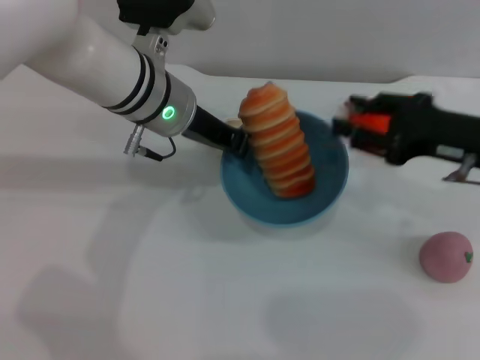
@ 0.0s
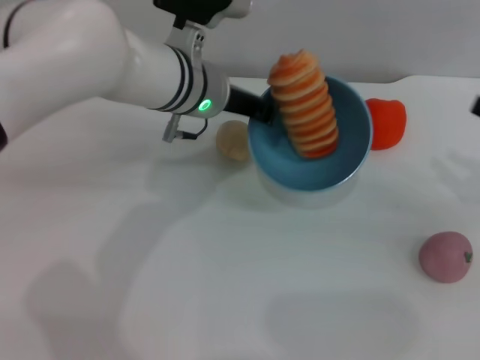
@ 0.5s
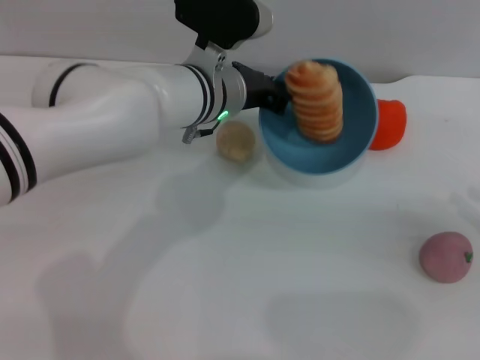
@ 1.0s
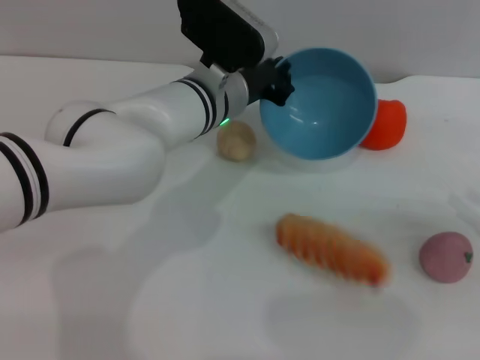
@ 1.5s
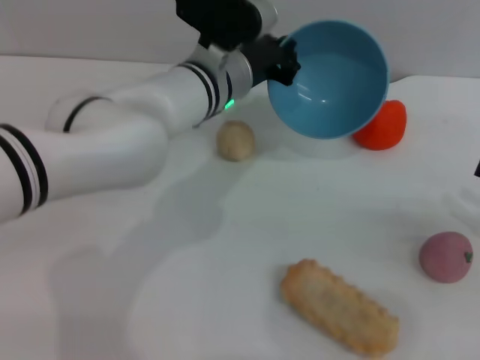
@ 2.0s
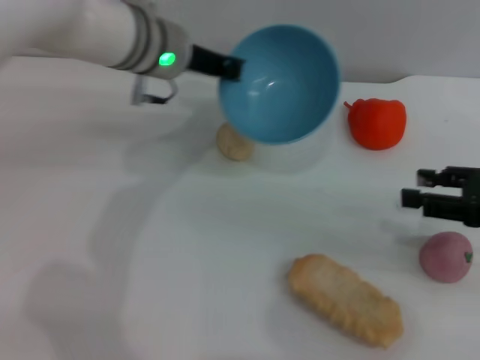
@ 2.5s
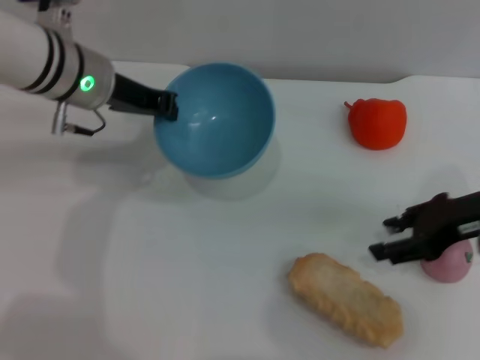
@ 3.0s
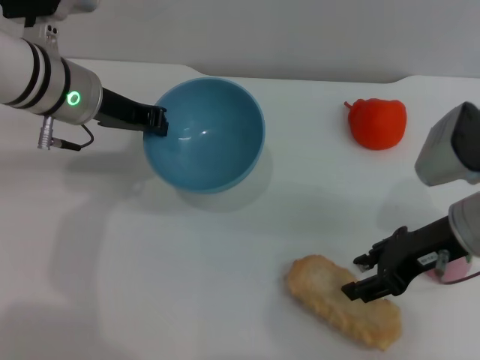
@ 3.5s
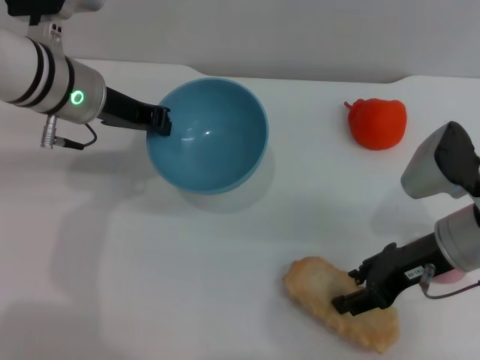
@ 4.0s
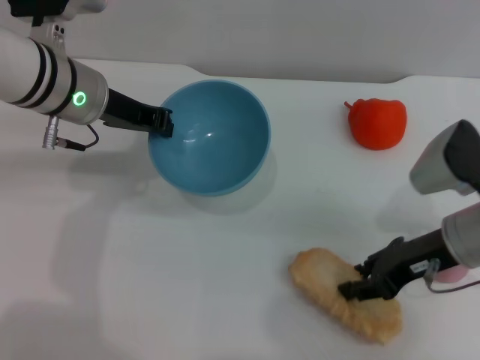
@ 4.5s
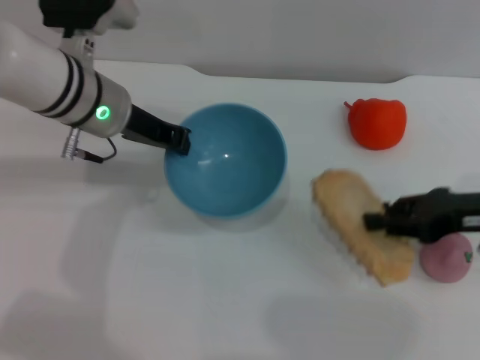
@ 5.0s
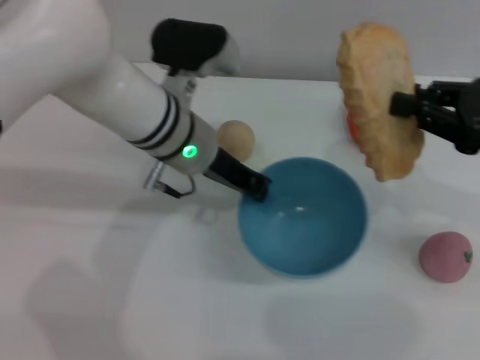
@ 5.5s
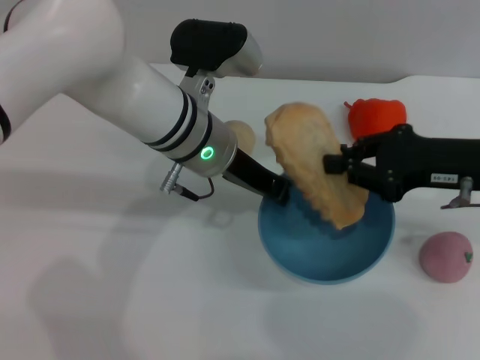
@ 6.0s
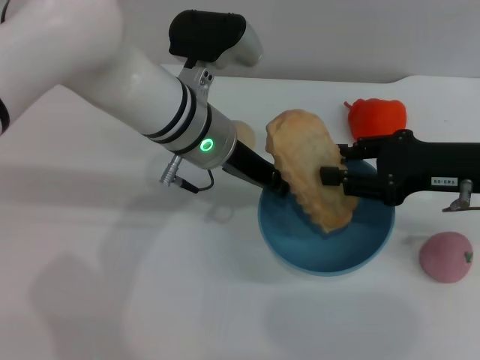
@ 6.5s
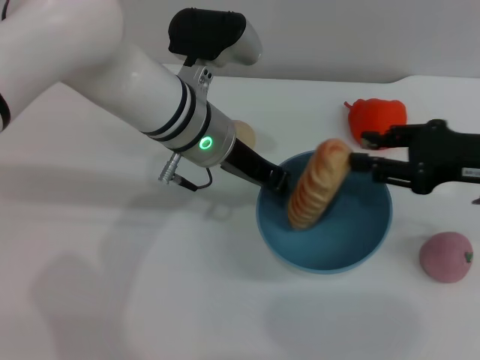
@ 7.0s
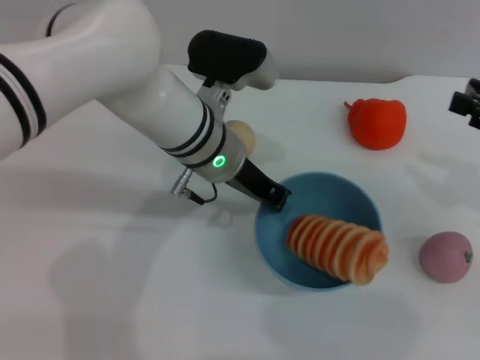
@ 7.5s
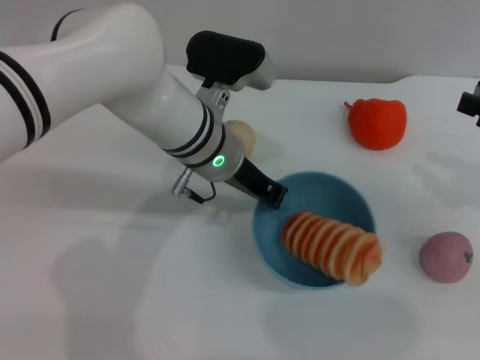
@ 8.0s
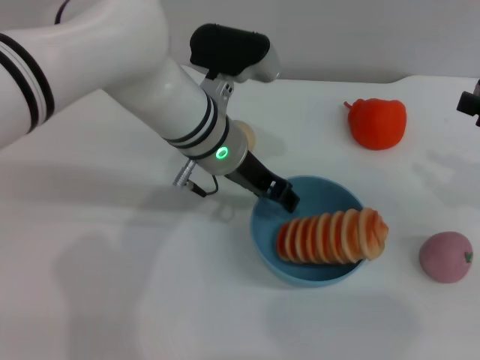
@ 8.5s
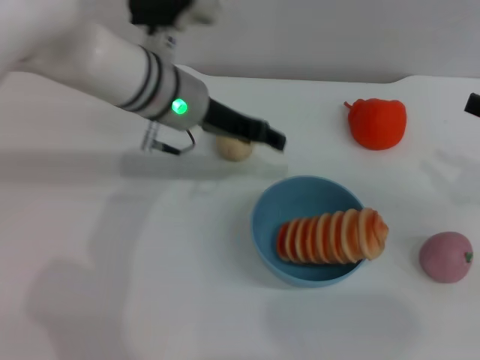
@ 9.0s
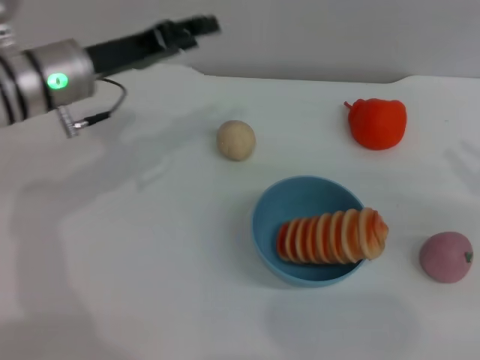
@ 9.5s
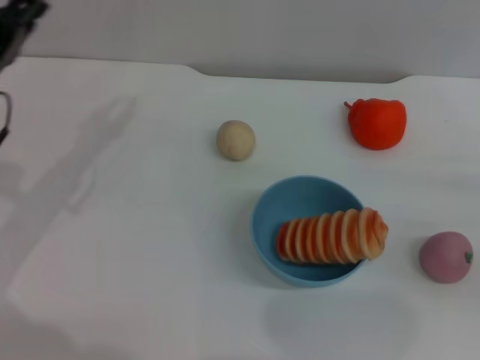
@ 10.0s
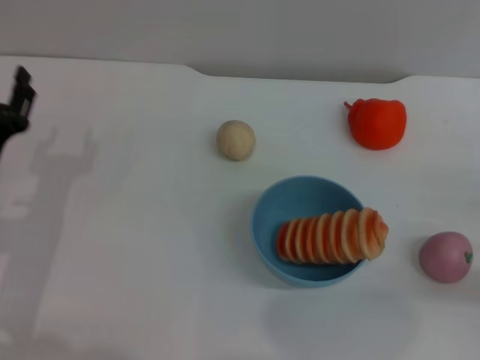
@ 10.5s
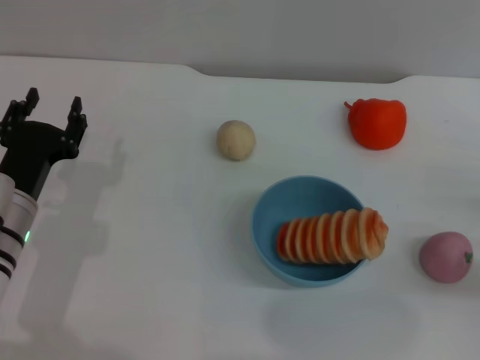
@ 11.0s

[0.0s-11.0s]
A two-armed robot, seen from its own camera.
Task of the whole recording: put the bread into the blue bowl and pour it out repeatedly.
Step, 0.5s to 2.0s: Pour the bread out of the bowl.
Step, 2.5s to 5.0s: Pick up the bread with the right gripper.
Step, 5.5s to 7.5s: Place the bread into the bowl.
Step, 8.0s to 9.0s: Place the bowl on the table.
0.0s to 2.0s: The right gripper goes some 15 cm to the right and backward, while the left gripper heads to the right, covering about 5 cm.
2.0s to 3.5s: The grippers both shift to the left by about 15 cm.
3.5s to 5.5s: The left gripper is displaced to the right by approximately 10 cm; the right gripper is displaced to the right and upward by some 10 cm, and closes its fingers.
5.5s to 7.5s: The right gripper changes place by about 5 cm, and opens its fingers.
7.5s to 9.0s: The left gripper shifts by about 5 cm, and opens.
9.0s to 11.0s: The left gripper goes approximately 25 cm to the left, backward and downward. Meanwhile the right gripper goes some 10 cm downward.

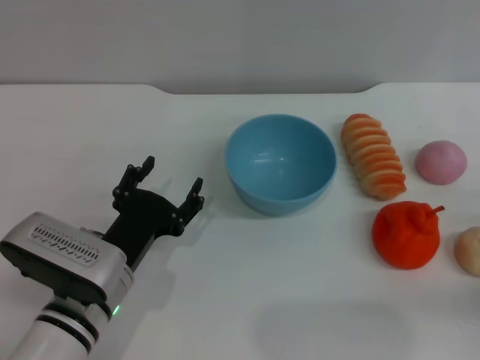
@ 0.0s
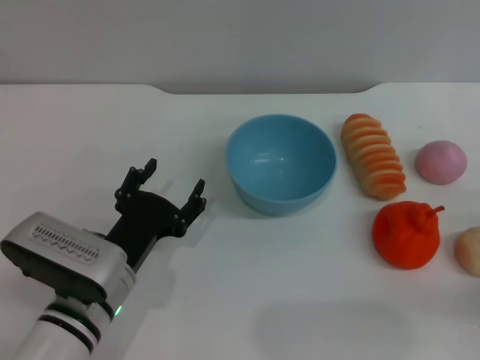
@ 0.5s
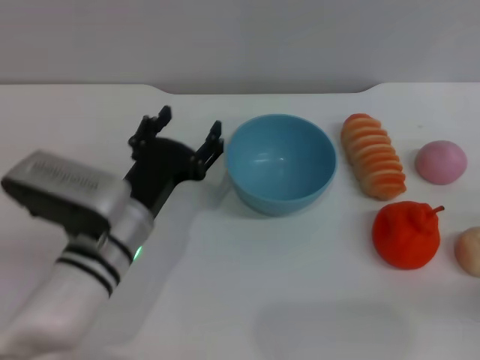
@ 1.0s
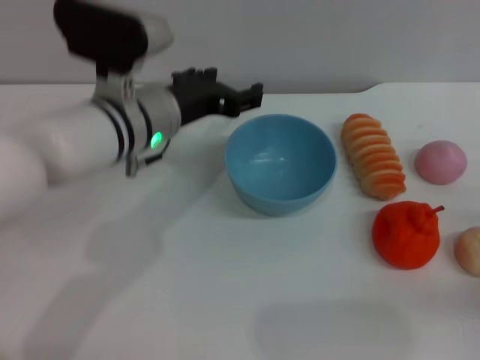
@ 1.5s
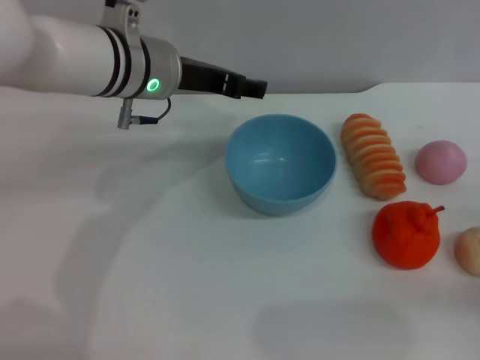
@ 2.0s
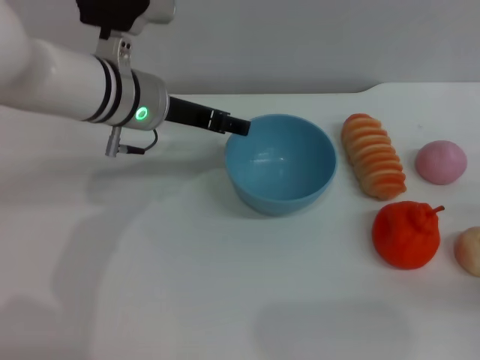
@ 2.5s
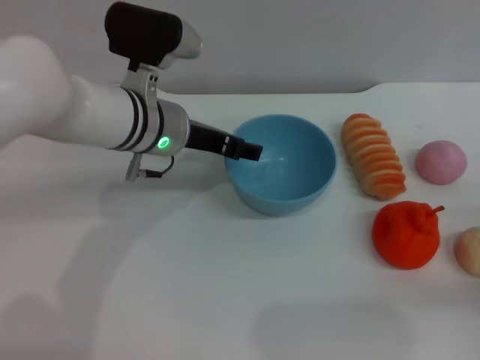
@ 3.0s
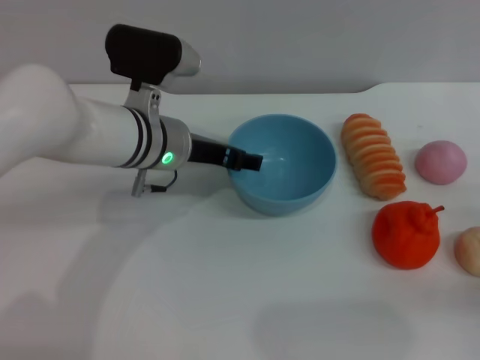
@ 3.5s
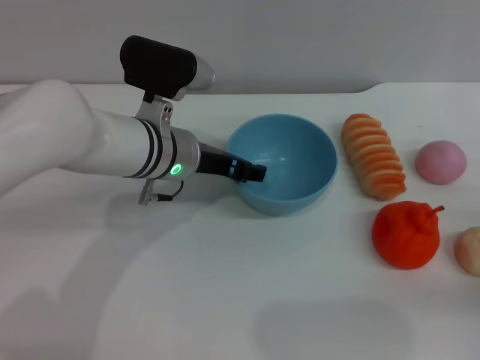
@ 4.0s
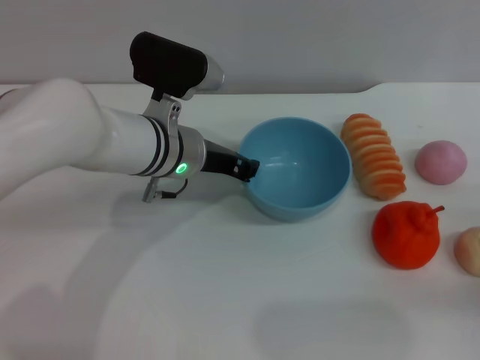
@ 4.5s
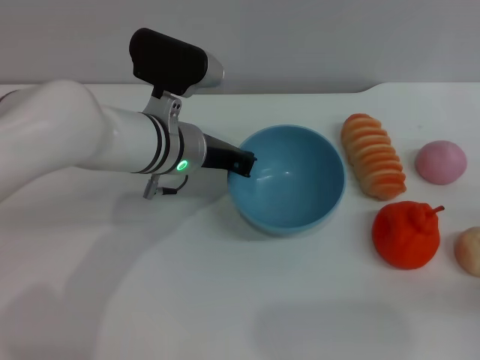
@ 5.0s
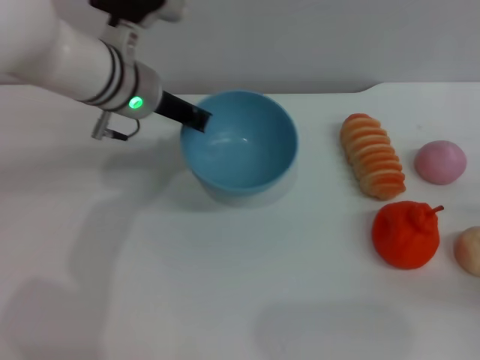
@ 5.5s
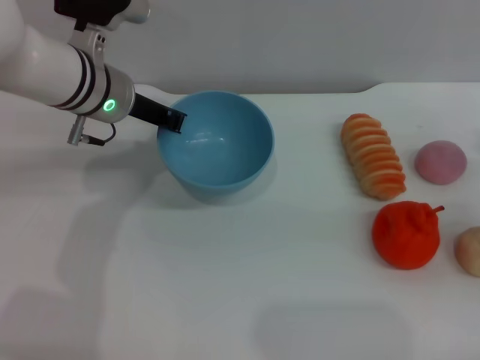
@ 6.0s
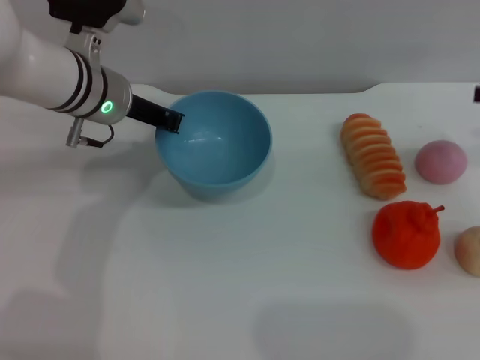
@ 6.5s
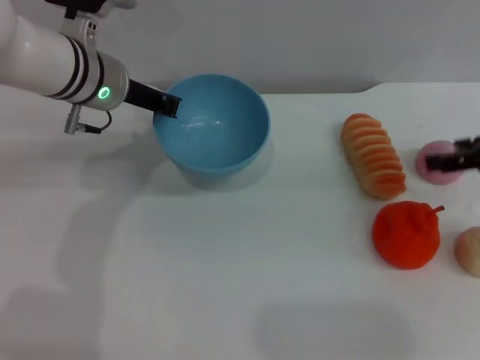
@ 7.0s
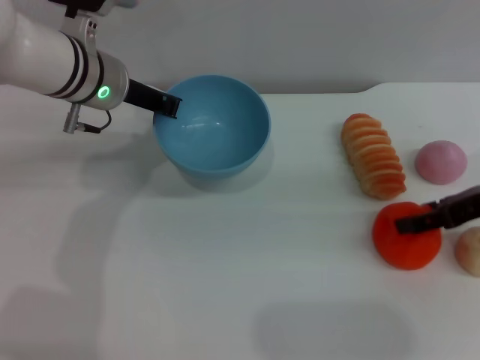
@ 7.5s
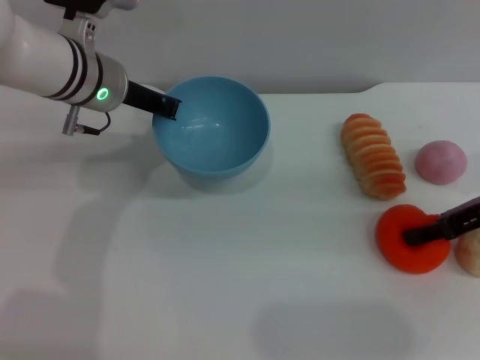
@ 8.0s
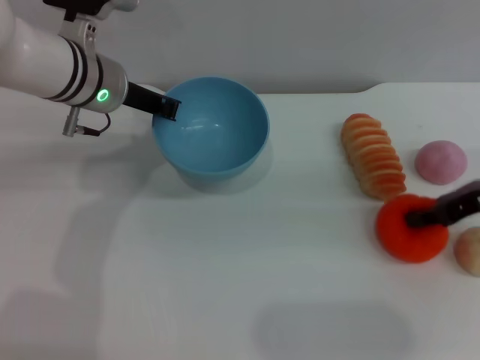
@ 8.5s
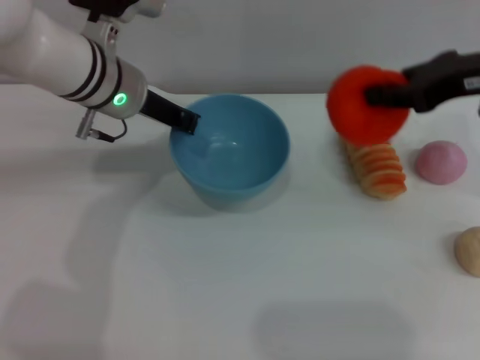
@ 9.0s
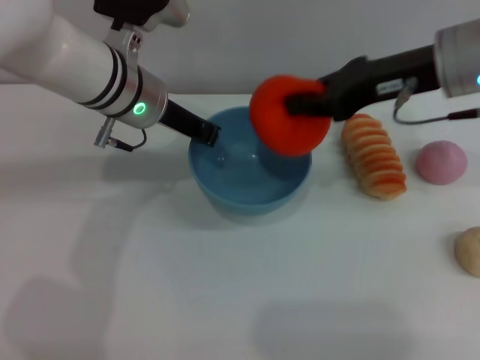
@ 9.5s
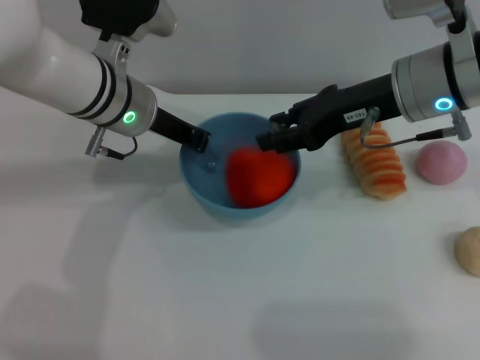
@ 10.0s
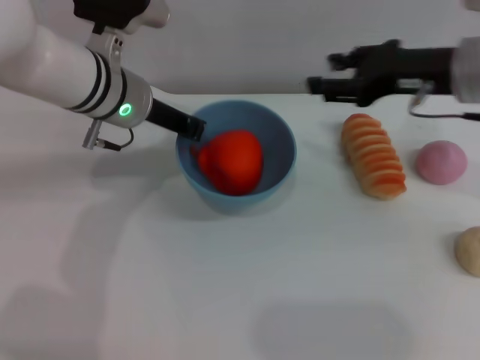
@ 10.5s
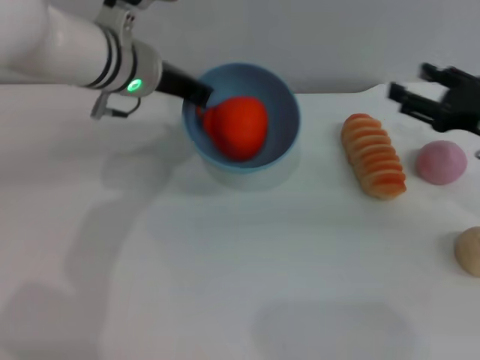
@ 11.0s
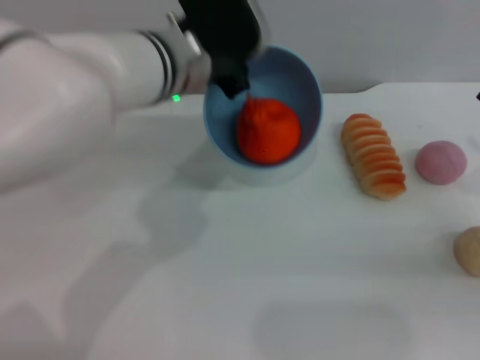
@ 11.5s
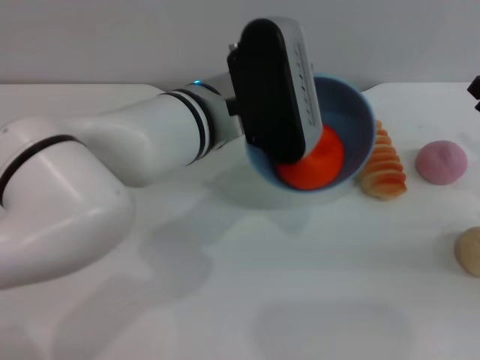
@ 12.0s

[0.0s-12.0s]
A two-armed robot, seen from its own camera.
Task of the whole recording: put the orange into the blue bowl and pour it out repeatedly.
Step, 0.0s to 5.5s: Pick up the bowl with the left gripper.
Step, 6.0s to 8.5s: Pick up the orange with the right gripper.
Step, 9.0s to 10.0s: Place the orange into the bowl.
0.0s to 2.0s: The left gripper is displaced forward and upward by about 25 cm.
2.0s to 4.0s: The left gripper shifts about 10 cm downward.
4.0s to 6.0s: The left gripper heads to the left and upward, covering roughly 10 cm, and closes its fingers, while the right gripper travels forward by about 5 cm.
6.0s to 8.0s: The right gripper goes approximately 10 cm to the left and upward.
8.0s to 10.0s: The right gripper travels to the left and upward by about 15 cm, and closes its fingers.
10.0s to 12.0s: The left gripper is displaced to the right and backward by some 10 cm. The right gripper goes some 25 cm to the right, downward and backward, and opens.

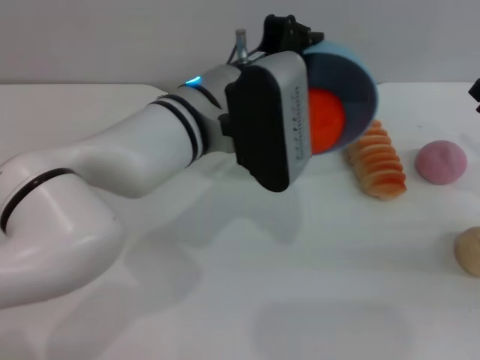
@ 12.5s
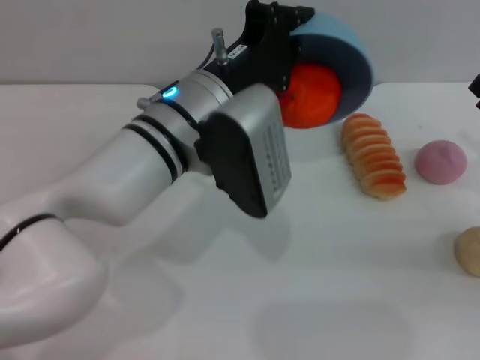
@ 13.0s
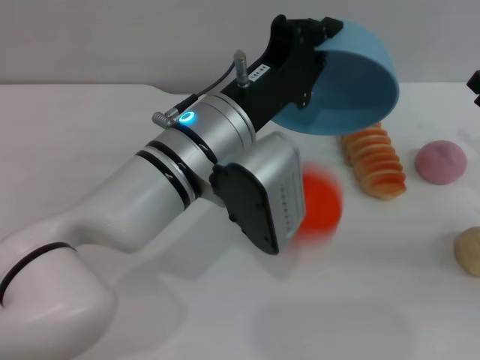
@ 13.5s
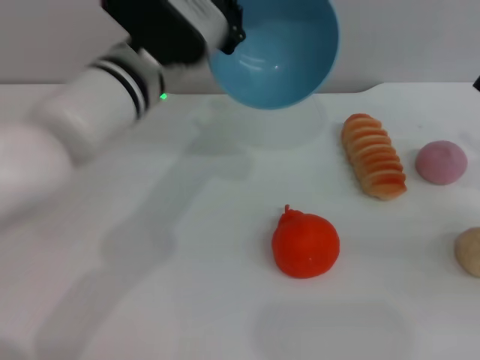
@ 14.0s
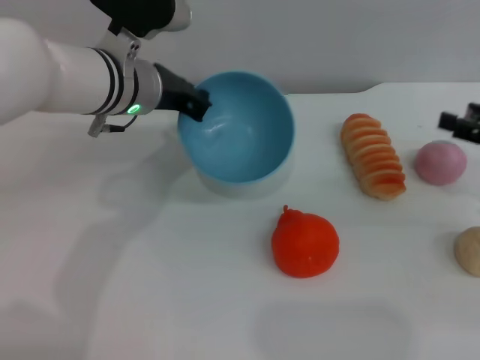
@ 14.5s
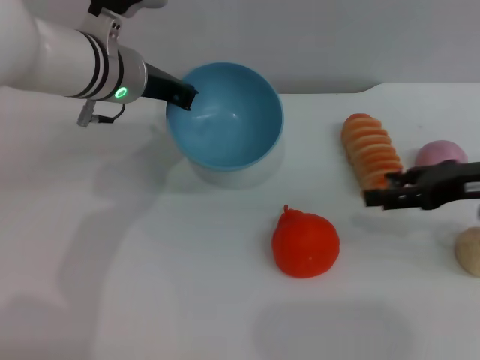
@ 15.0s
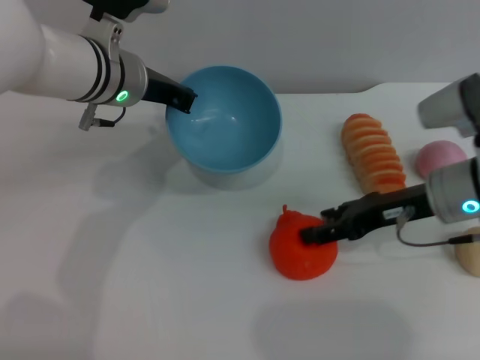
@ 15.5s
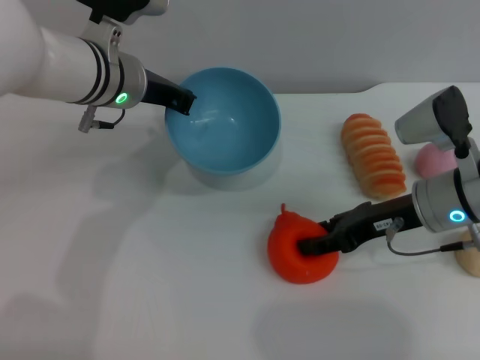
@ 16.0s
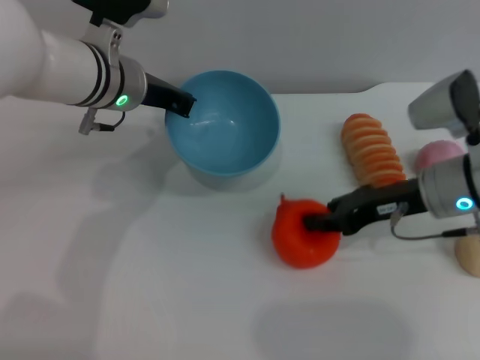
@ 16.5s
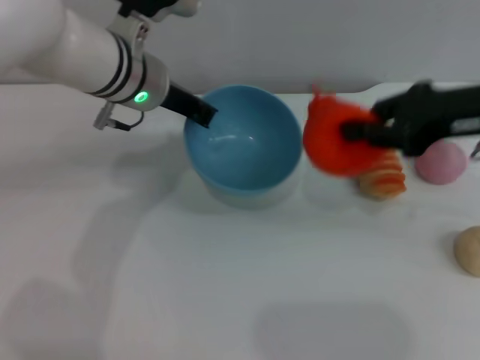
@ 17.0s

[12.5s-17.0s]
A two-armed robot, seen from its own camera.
Task of the whole recording: put the orange into the blue bowl and pour it out repeatedly.
Step, 14.5s to 16.5s: Pick up the orange with the right gripper.
12.5s to 14.5s: The right gripper moves upward, some 5 cm. The left gripper is displaced to the left and forward by about 10 cm.
14.5s to 17.0s: The right gripper is displaced to the left and upward by roughly 15 cm, and closes up.
